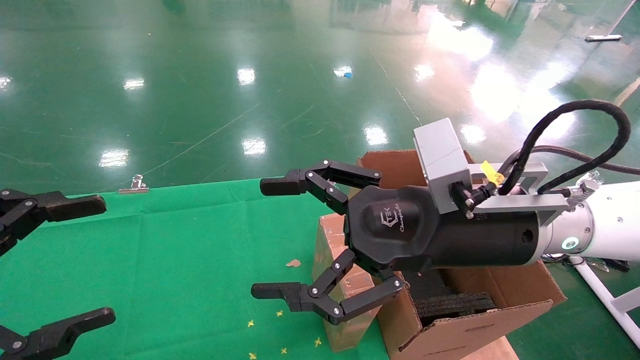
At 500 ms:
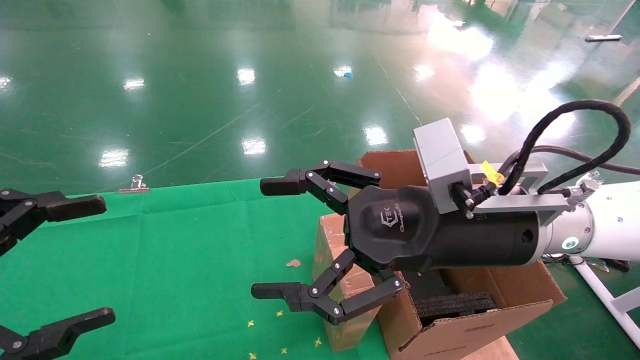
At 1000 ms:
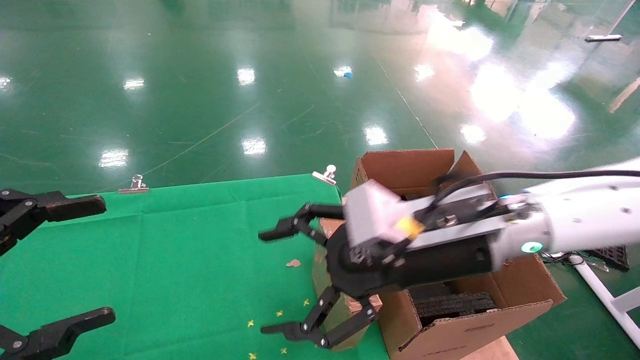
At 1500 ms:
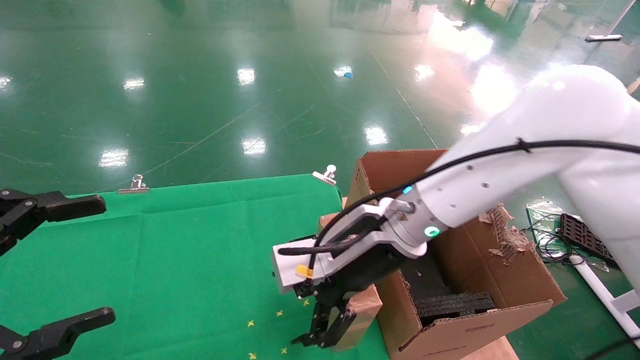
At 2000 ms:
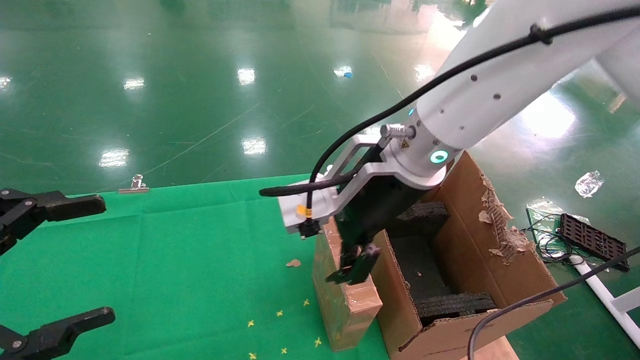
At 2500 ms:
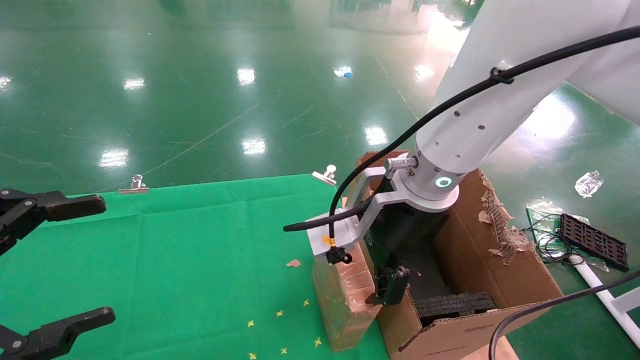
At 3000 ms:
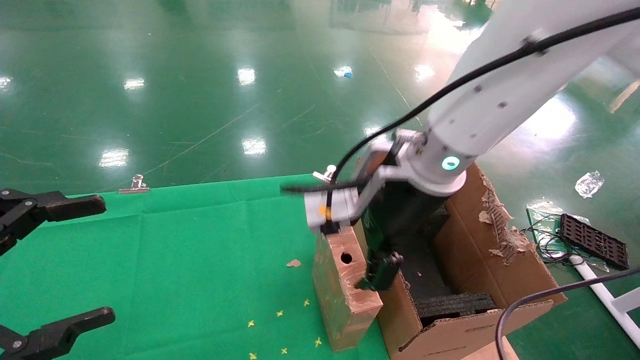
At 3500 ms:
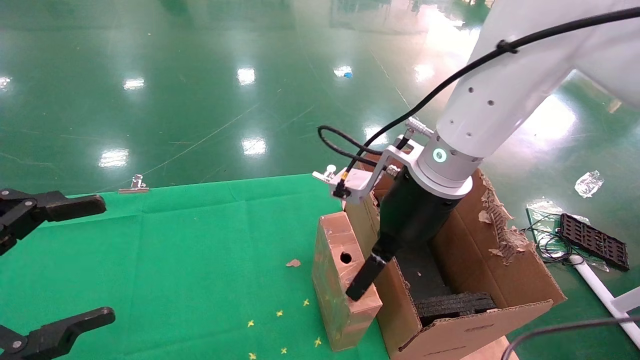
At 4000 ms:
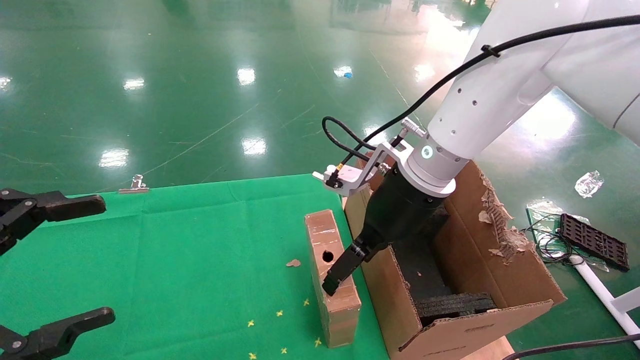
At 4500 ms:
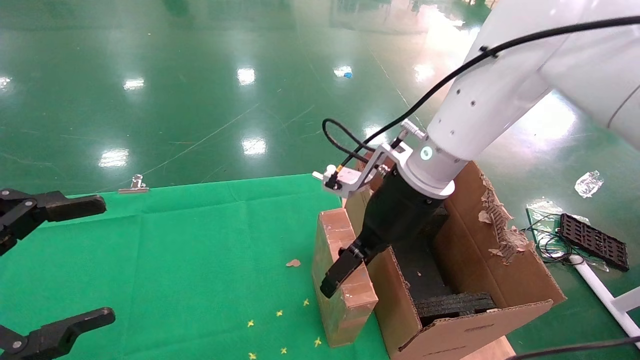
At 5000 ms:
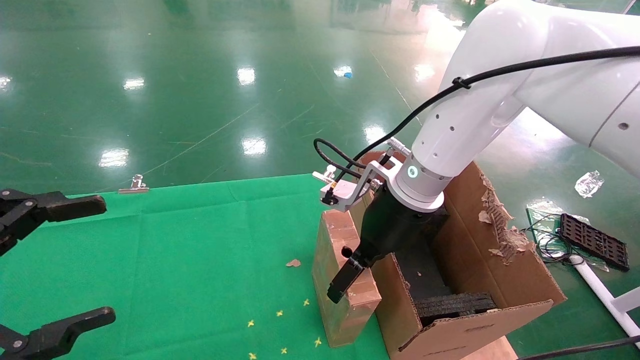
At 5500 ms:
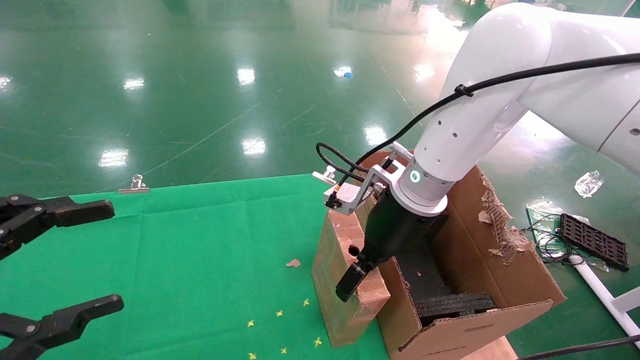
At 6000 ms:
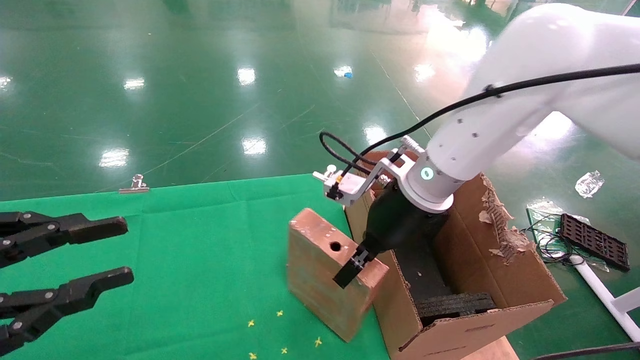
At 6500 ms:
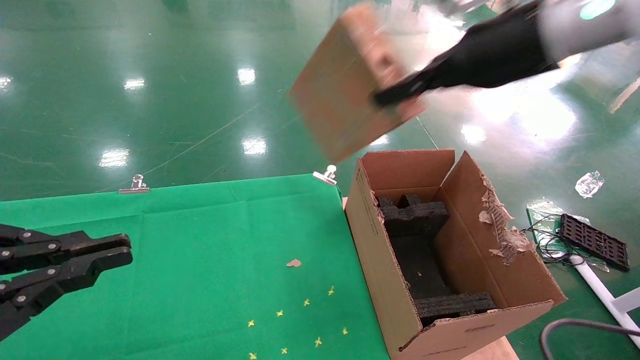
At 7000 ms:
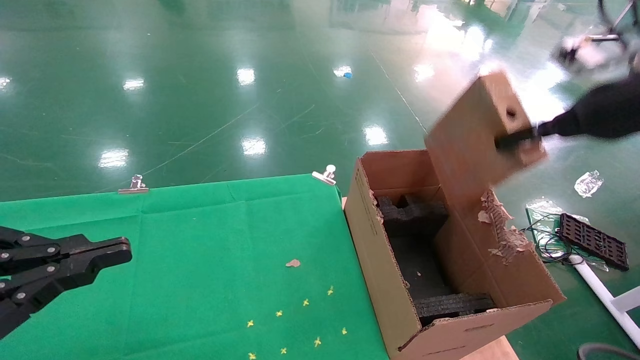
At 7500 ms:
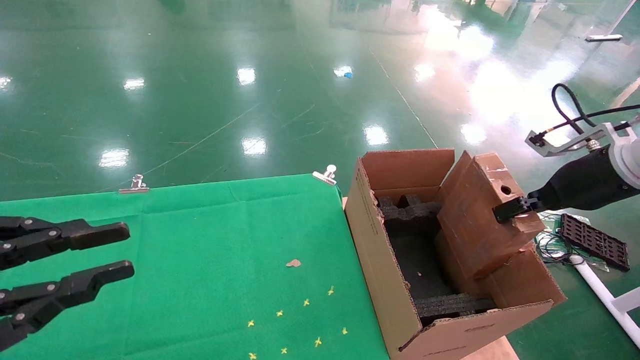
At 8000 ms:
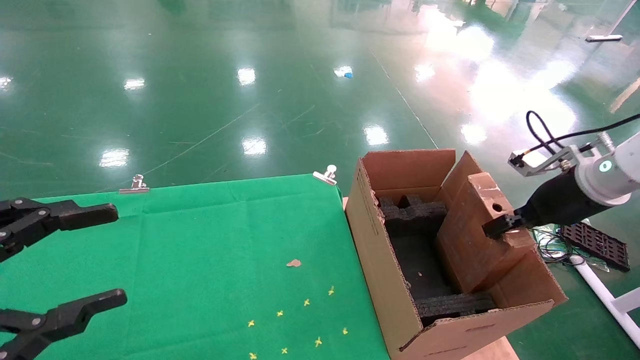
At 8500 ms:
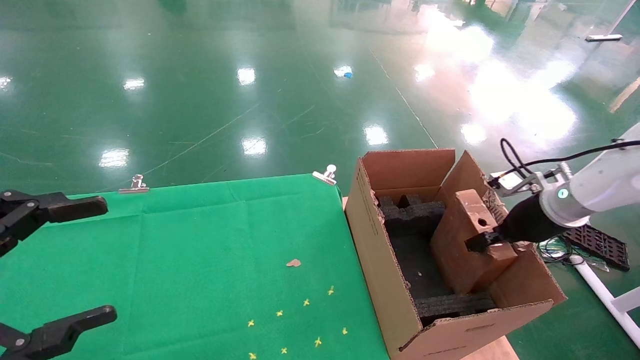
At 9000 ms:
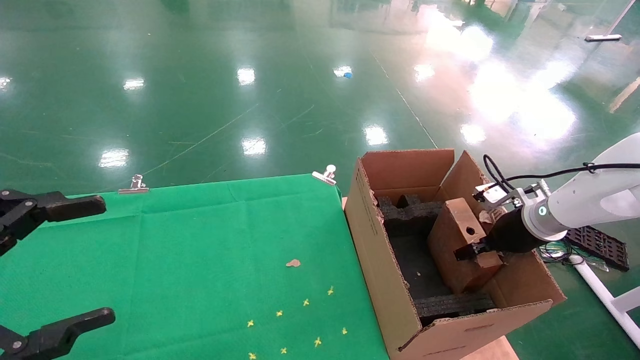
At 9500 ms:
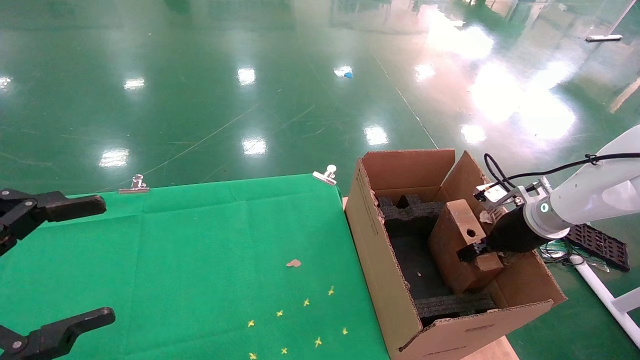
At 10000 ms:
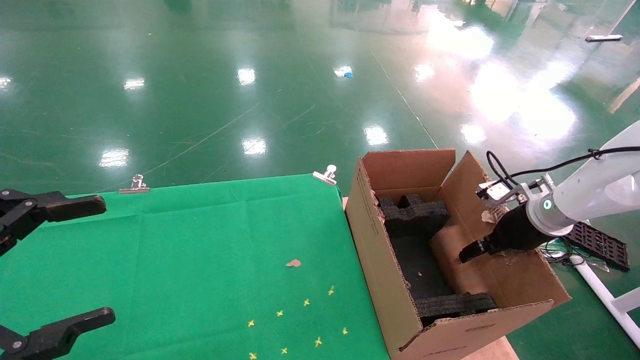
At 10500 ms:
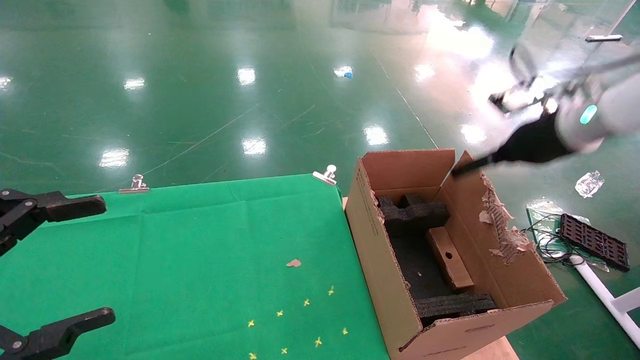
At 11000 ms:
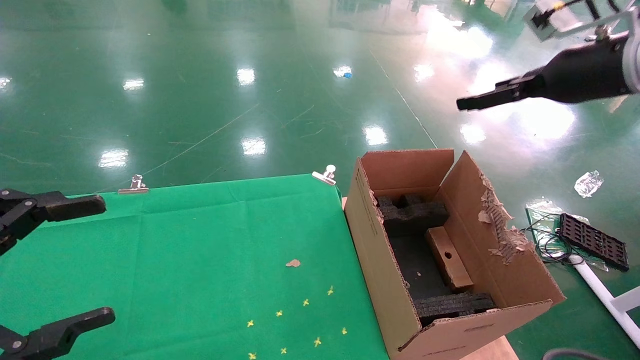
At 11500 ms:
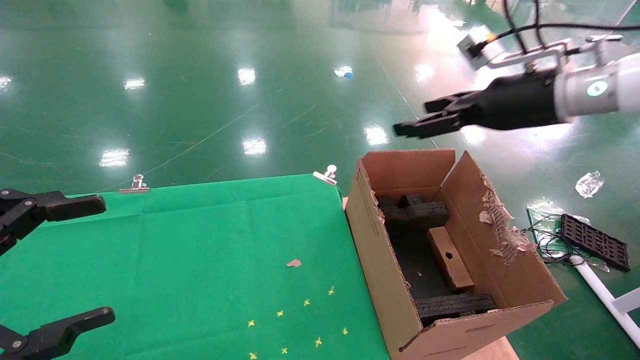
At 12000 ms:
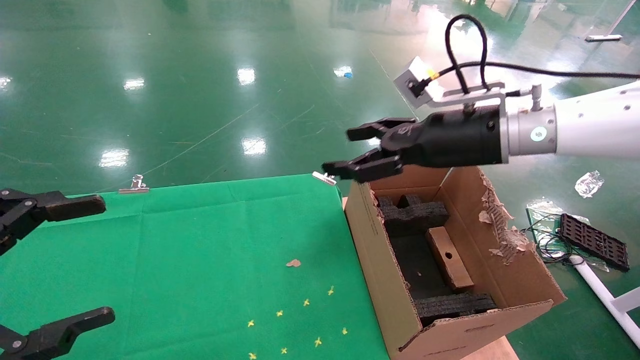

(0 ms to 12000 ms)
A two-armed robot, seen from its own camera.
Task of the whole recording: using a robotic arm to pick up a cardboard box and palace it the carton.
Step, 1000 ms - 5500 ms: Pick up the mouse and the power cord paper box.
Step, 6000 ms - 10000 ms: Place the mouse and the power cord paper box into the container.
0 ms - 2000 ms: The right gripper is displaced to the left and forward by approximately 10 cm.
2000 ms - 4000 ms: The right gripper ends up about 5 cm from where it was.
4000 ms - 6000 ms: The left gripper closes up, while the right gripper closes.
6000 ms - 8000 ms: The left gripper closes and opens again; the right gripper is displaced to the right by about 25 cm.
8000 ms - 10000 ms: The right gripper moves downward, some 5 cm, and opens up. Meanwhile the left gripper opens up.
10000 ms - 12000 ms: The right gripper travels to the left and upward by roughly 20 cm, and opens.

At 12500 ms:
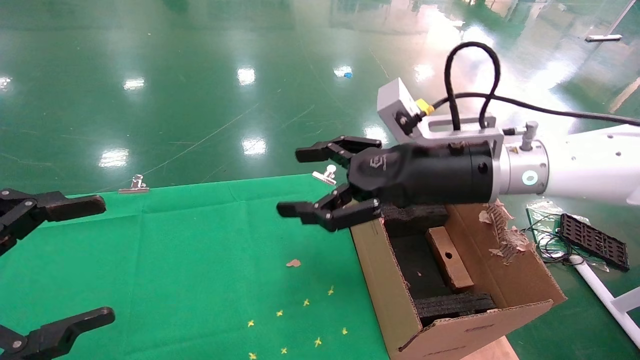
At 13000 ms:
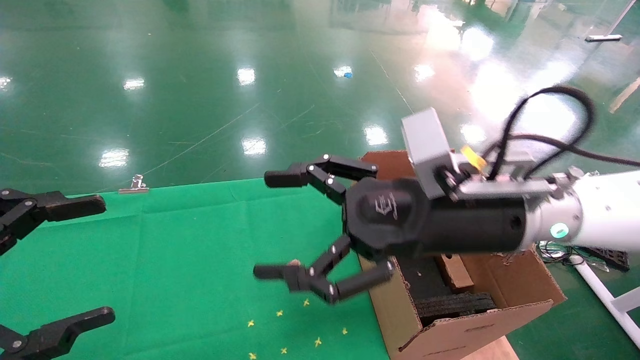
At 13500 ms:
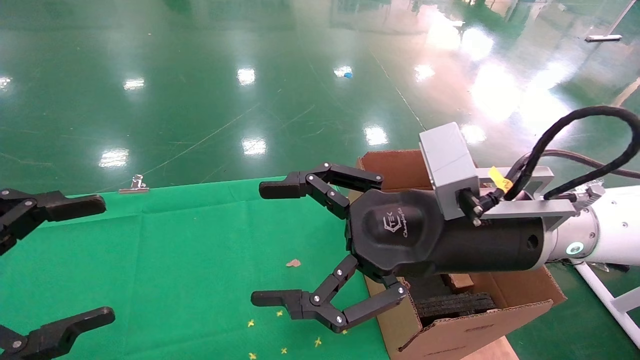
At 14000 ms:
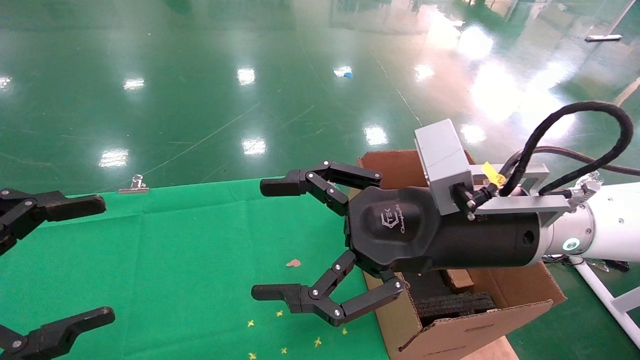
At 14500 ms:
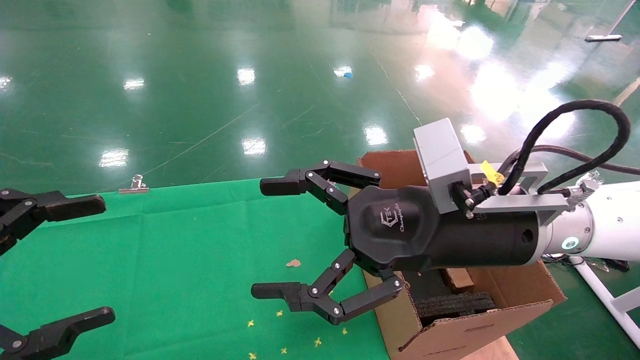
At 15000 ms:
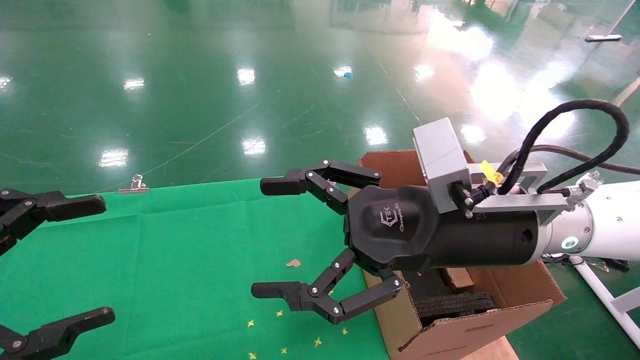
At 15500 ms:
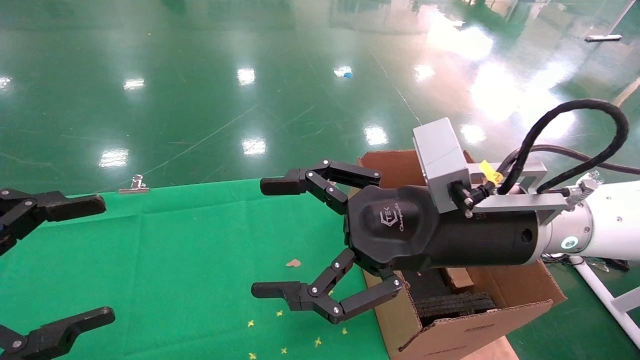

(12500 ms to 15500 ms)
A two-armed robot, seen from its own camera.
Task of the whole recording: using a robotic arm to pick up a cardboard box and palace it the carton.
12500 ms - 14000 ms: The right gripper moves backward, about 5 cm.
14000 ms - 15500 ms: The two grippers keep their place.

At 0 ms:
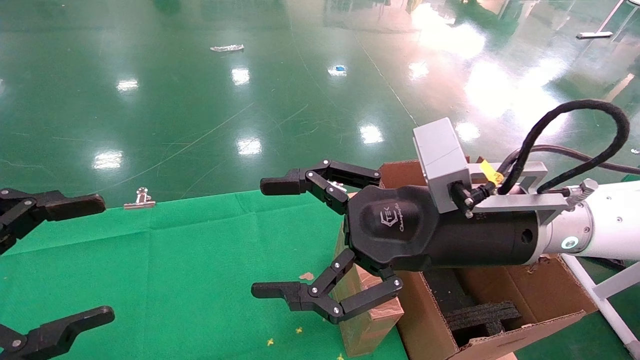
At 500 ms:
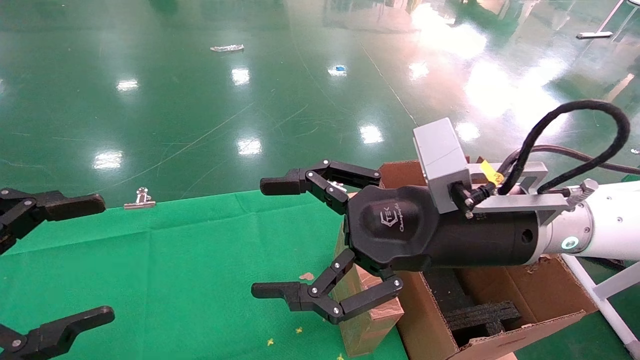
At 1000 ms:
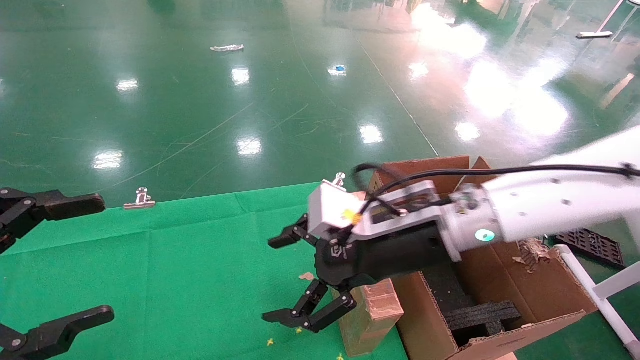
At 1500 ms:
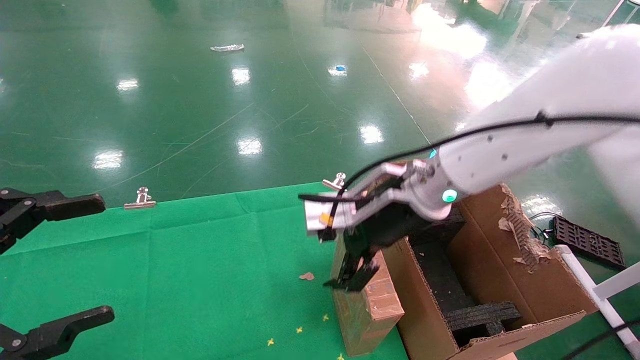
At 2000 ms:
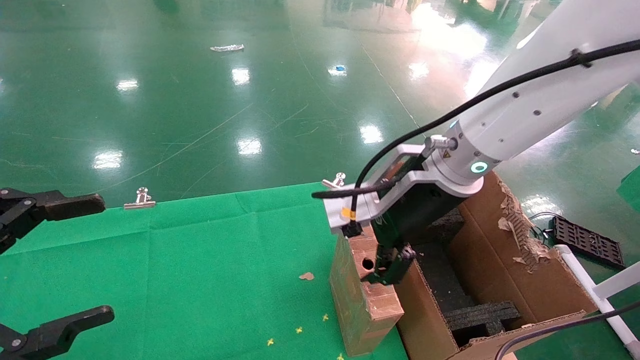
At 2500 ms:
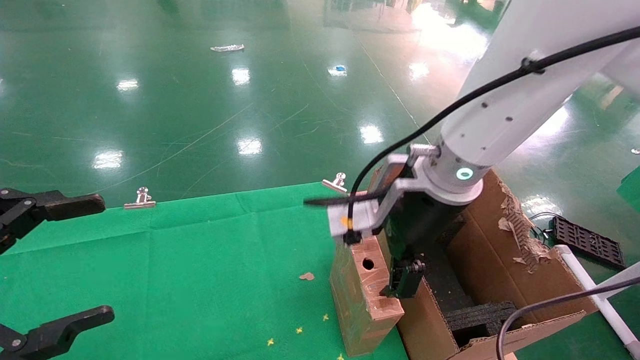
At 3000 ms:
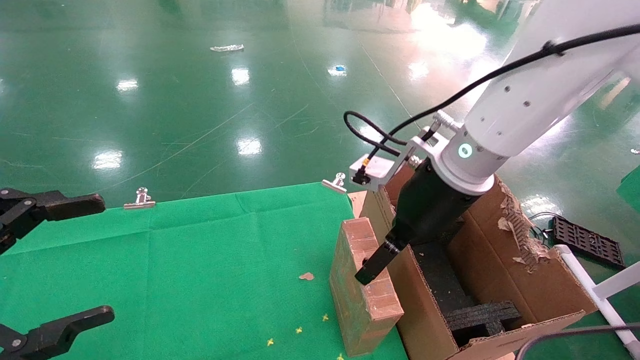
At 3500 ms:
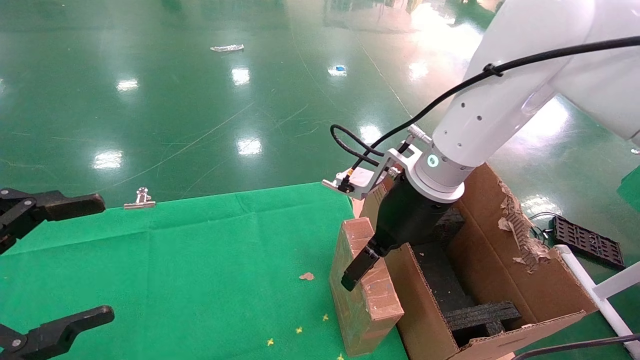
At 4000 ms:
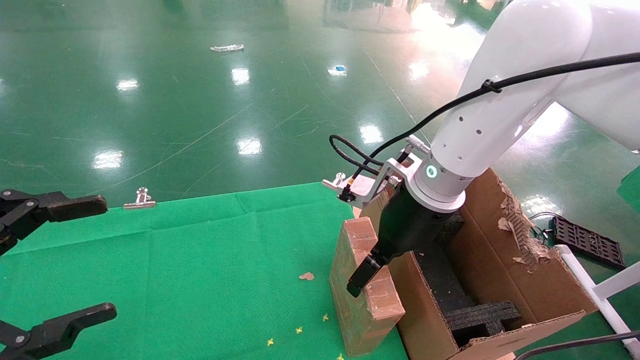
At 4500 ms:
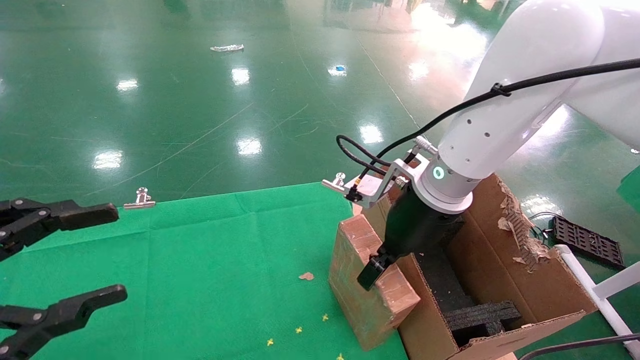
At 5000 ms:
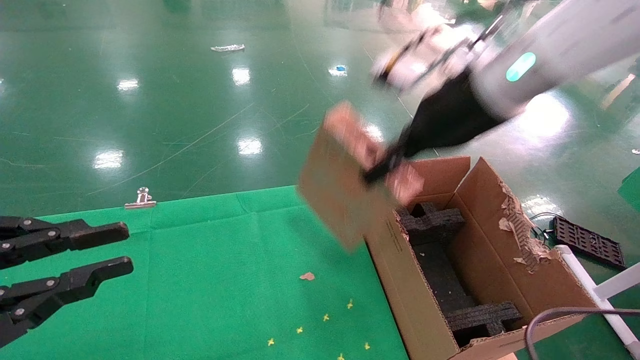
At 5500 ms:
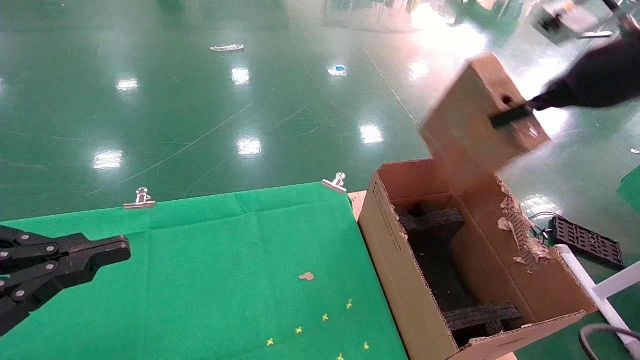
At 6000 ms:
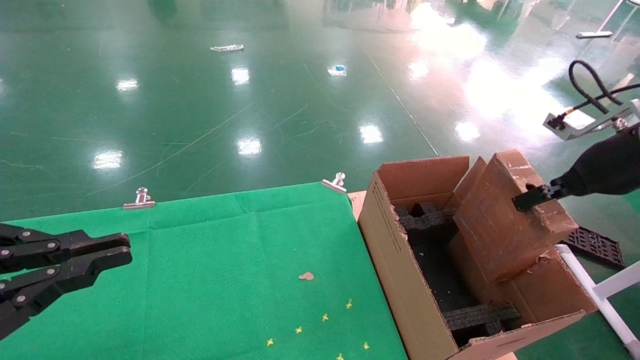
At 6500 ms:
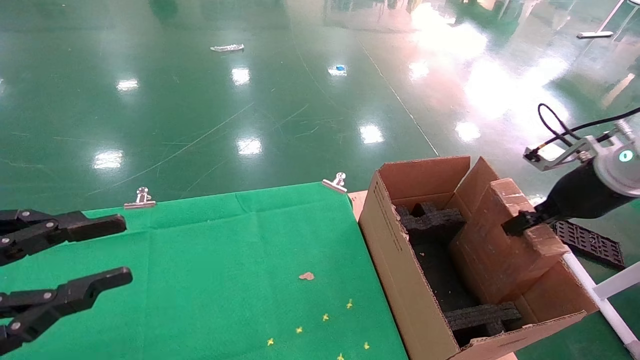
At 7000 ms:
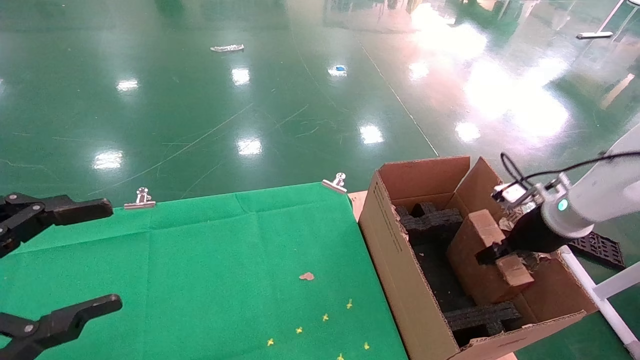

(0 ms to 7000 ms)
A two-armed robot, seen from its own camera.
Task of the whole recording: using a robotic arm to pick up a cardboard box and palace it the carton.
Step, 1000 ms - 4500 ms: Pick up the mouse and the power cord paper box.
0 ms - 2000 ms: The right gripper moves forward, about 5 cm.
3500 ms - 5000 ms: The left gripper closes up; the right gripper heads upward and to the right, covering about 15 cm, and closes.
5000 ms - 7000 ms: The right gripper travels downward and to the right by some 30 cm, while the left gripper opens its fingers.
